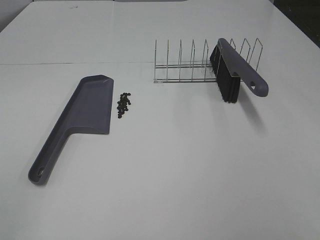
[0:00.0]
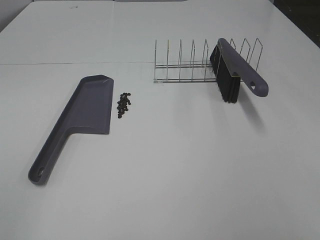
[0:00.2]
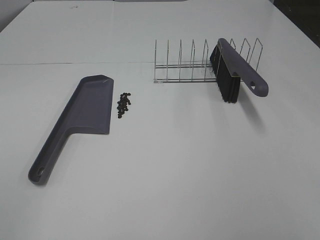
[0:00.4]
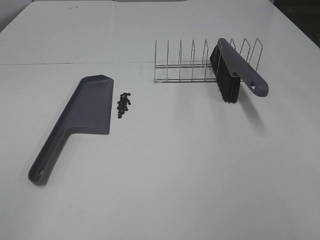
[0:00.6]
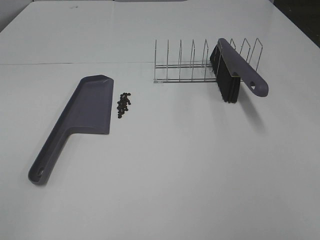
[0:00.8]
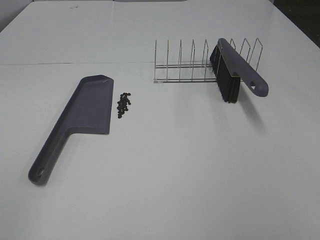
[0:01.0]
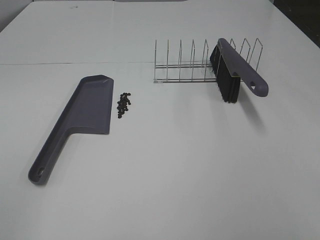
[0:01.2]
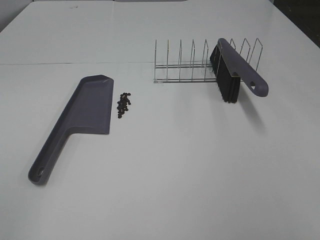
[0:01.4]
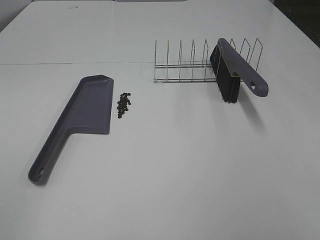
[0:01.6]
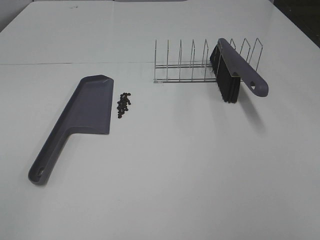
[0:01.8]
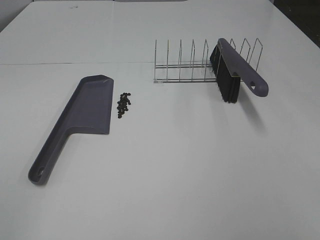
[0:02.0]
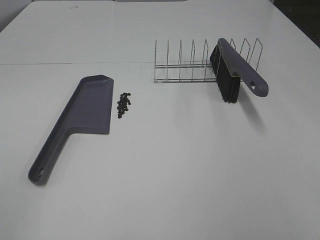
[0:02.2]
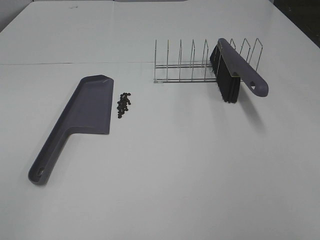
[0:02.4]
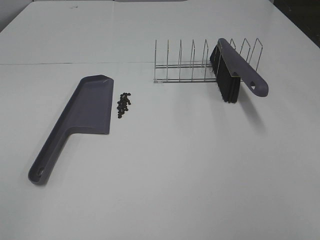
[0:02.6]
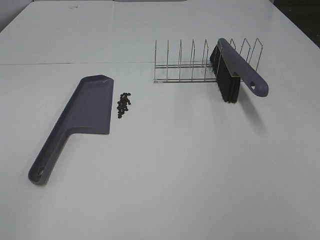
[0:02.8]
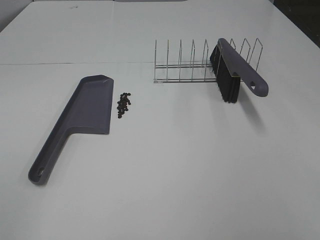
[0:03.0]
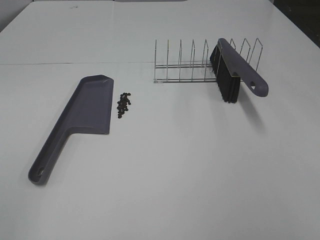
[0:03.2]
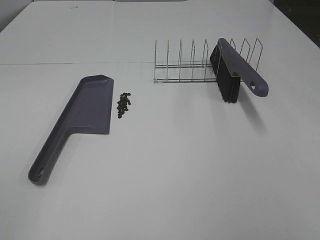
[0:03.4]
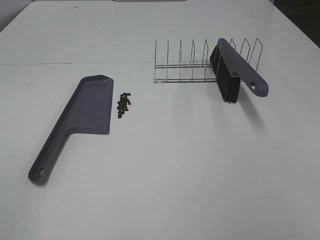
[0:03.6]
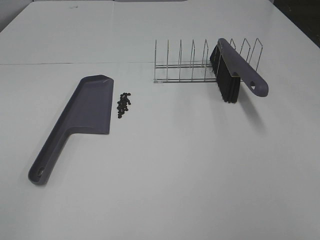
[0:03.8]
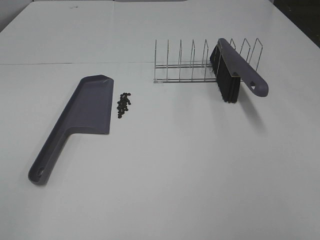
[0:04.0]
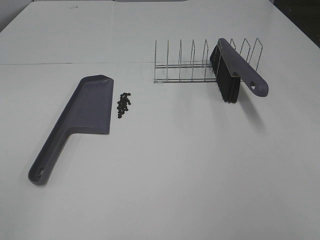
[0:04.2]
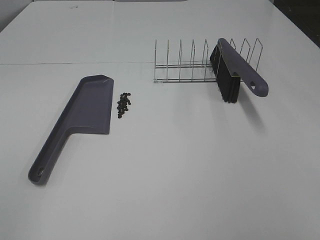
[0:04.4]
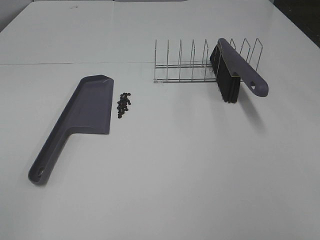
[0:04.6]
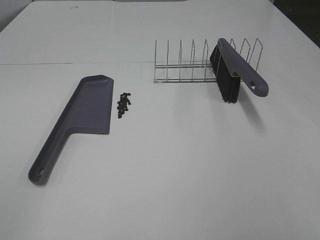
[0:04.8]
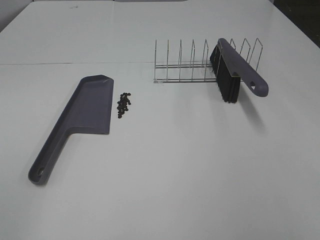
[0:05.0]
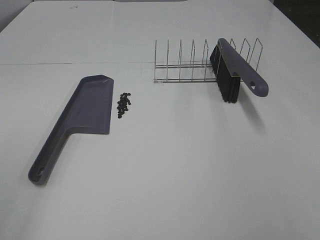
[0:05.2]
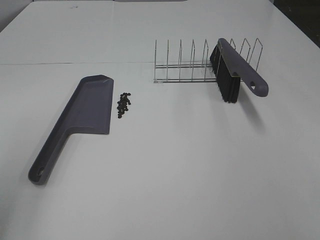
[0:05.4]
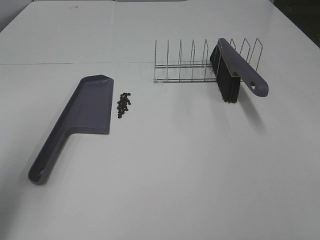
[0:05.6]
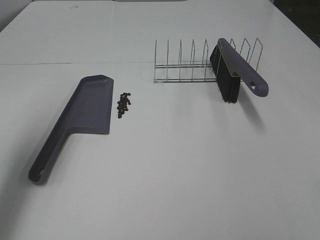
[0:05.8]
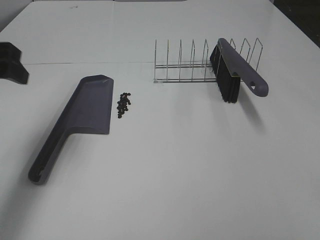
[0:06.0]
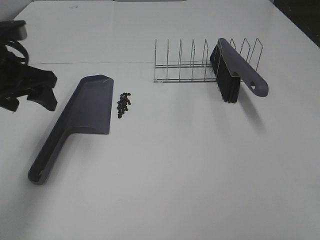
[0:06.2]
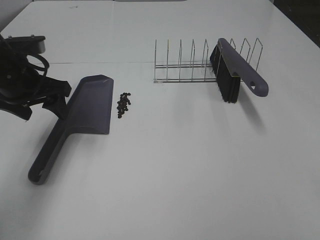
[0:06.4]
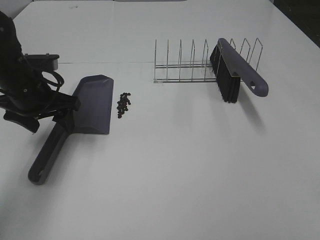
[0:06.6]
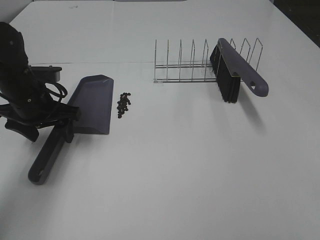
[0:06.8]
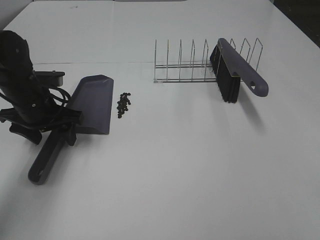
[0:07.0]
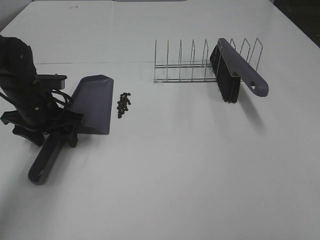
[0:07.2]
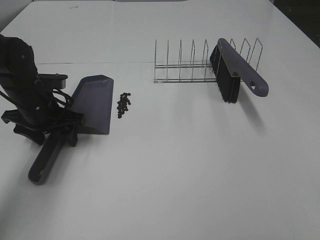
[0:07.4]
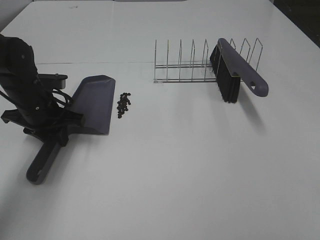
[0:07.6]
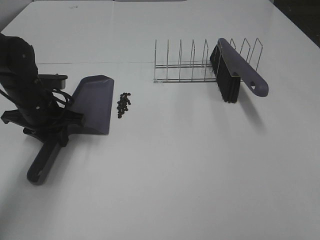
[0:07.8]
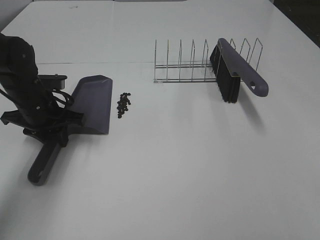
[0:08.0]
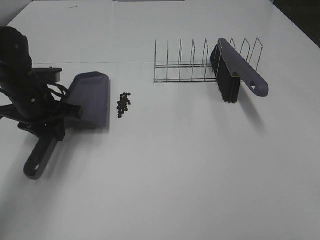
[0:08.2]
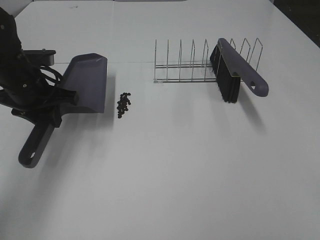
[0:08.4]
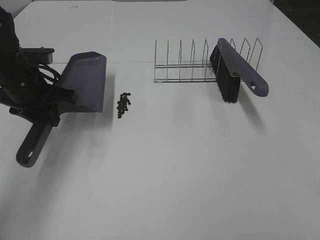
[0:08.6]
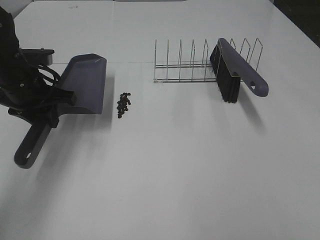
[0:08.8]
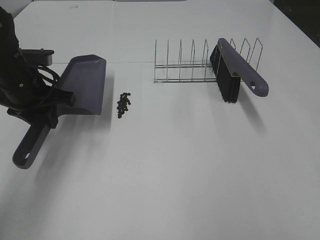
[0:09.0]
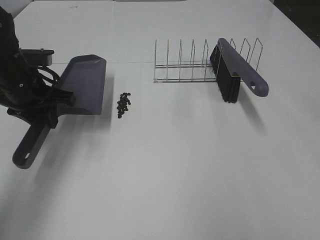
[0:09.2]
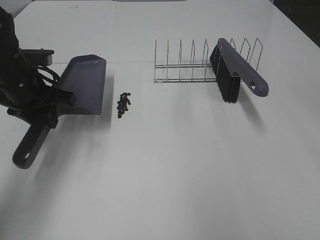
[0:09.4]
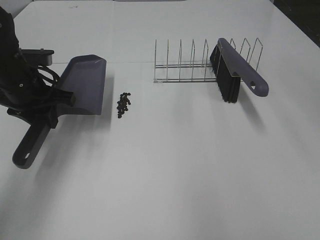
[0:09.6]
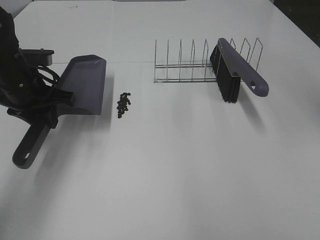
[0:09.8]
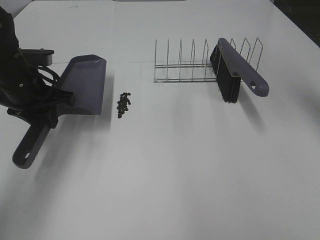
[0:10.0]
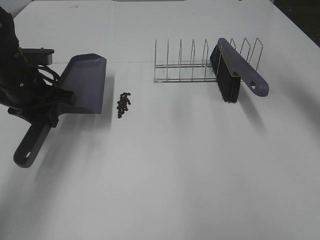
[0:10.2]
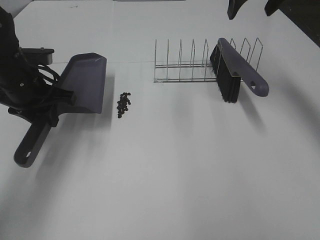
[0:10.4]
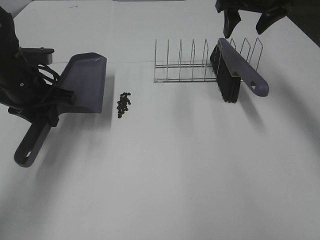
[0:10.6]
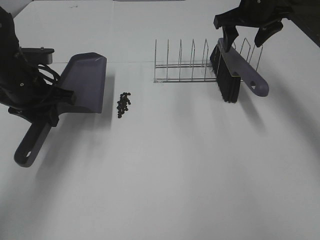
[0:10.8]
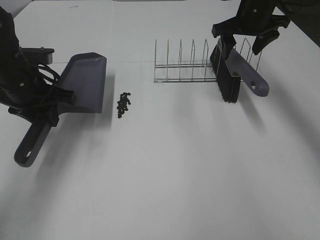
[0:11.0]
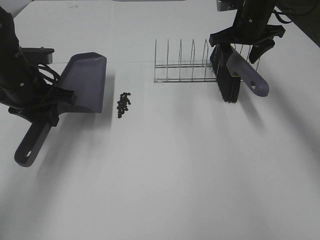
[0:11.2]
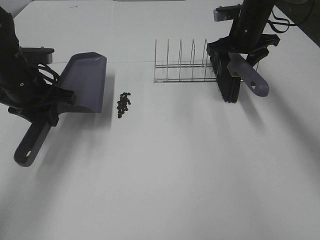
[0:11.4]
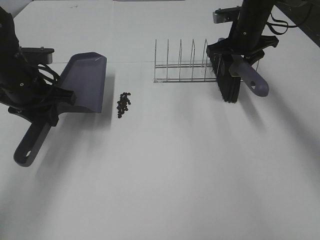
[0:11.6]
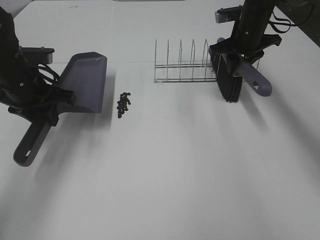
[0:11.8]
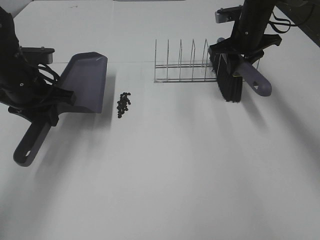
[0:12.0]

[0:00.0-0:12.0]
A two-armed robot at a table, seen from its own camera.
Task of the whole recording: Sweep Coffee Bean.
Step, 0:00.0 to 0:07.8: Left hand: grab the dustpan.
Step, 0:08.6 to 0:11.8: Right hand:grab the broom.
0:00.0 to 0:04.4: Both grippers stay put.
0:04.4 to 0:06.0: The left gripper is displaced forward by about 30 cm.
0:06.0 to 0:07.6: The left gripper is displaced downward and forward by some 20 cm, and closes.
0:07.6 to 0:09.0: The left gripper moves upward, approximately 5 cm.
0:09.0 to 0:10.4: The right gripper shifts about 40 cm forward.
0:10.4 to 0:12.0: The right gripper goes roughly 15 cm downward, and closes up.

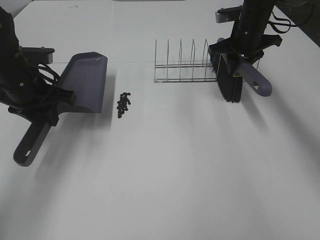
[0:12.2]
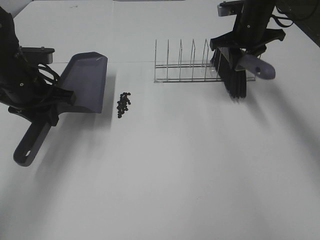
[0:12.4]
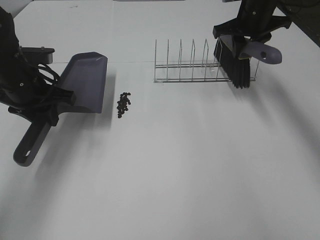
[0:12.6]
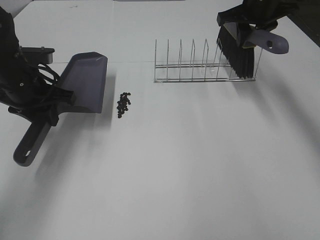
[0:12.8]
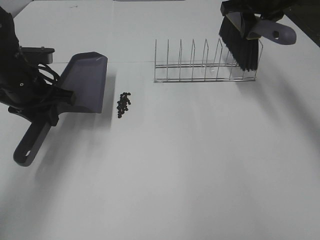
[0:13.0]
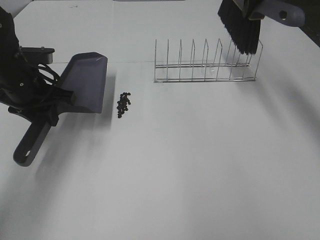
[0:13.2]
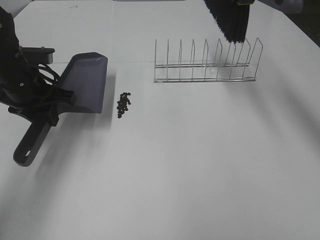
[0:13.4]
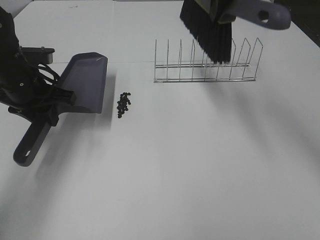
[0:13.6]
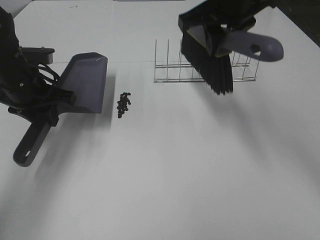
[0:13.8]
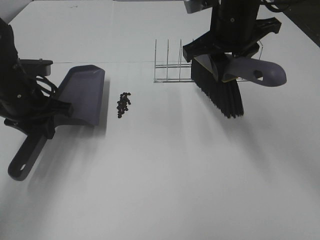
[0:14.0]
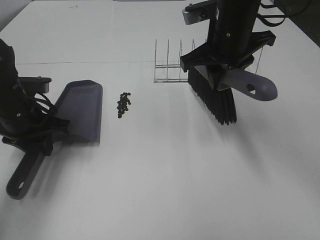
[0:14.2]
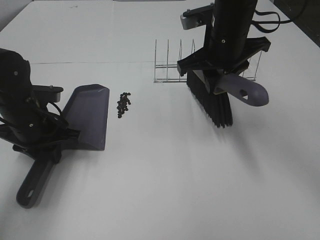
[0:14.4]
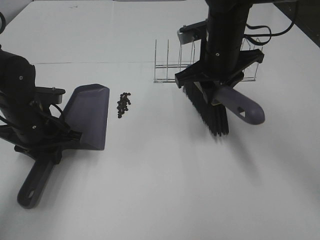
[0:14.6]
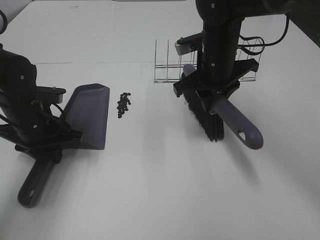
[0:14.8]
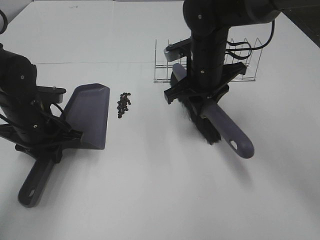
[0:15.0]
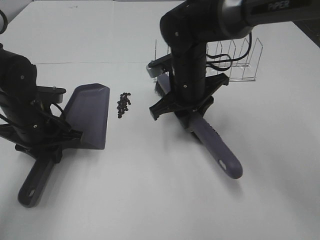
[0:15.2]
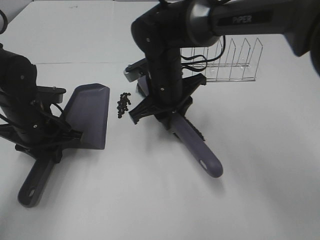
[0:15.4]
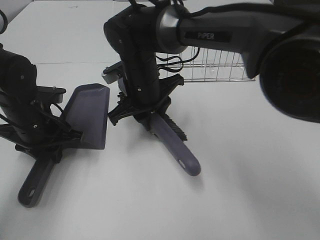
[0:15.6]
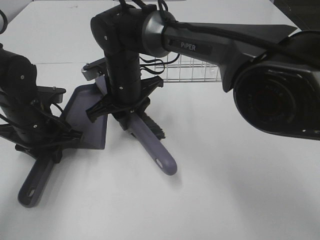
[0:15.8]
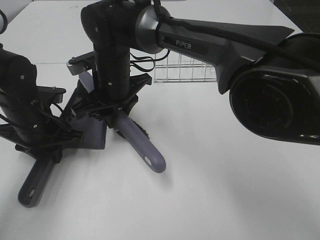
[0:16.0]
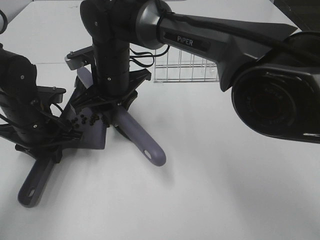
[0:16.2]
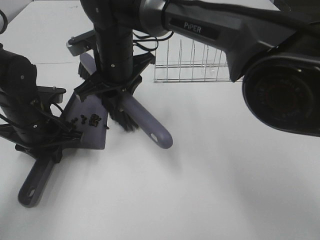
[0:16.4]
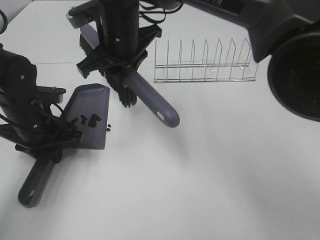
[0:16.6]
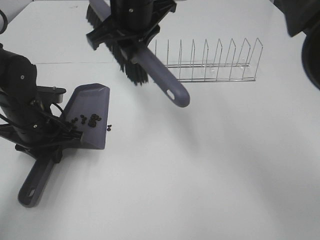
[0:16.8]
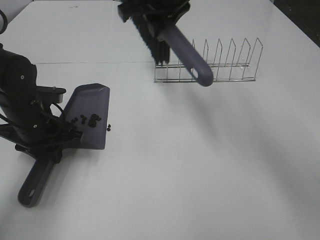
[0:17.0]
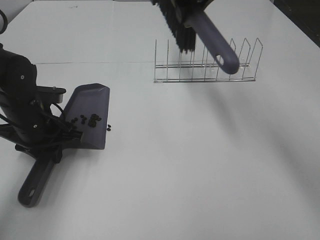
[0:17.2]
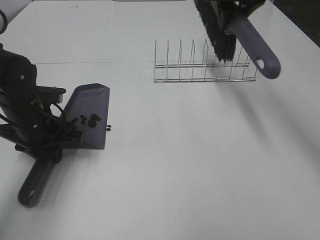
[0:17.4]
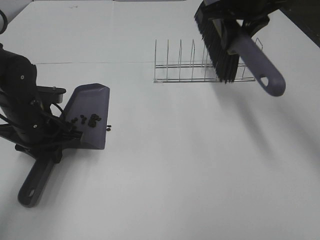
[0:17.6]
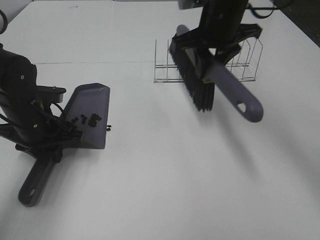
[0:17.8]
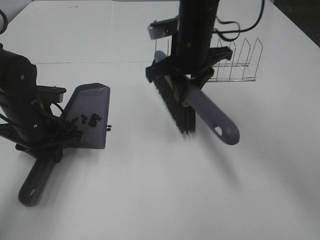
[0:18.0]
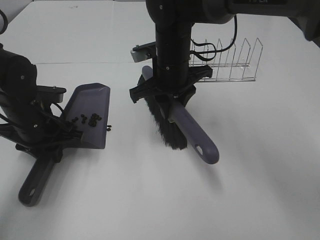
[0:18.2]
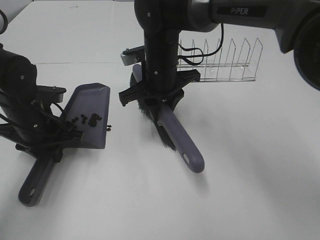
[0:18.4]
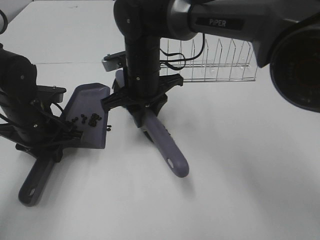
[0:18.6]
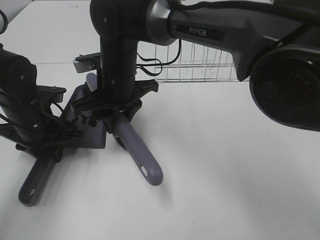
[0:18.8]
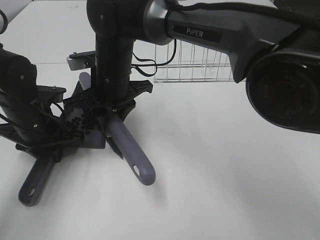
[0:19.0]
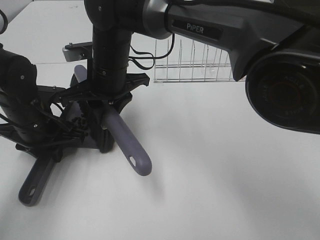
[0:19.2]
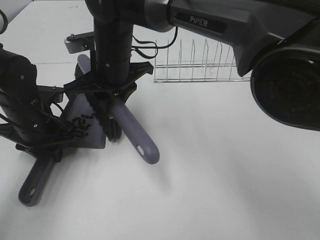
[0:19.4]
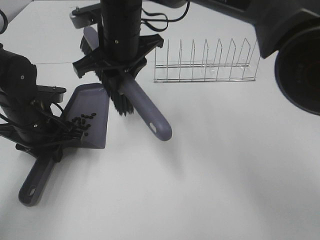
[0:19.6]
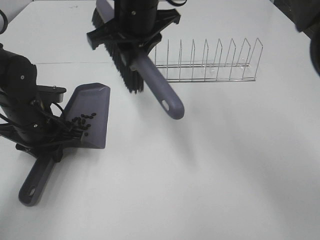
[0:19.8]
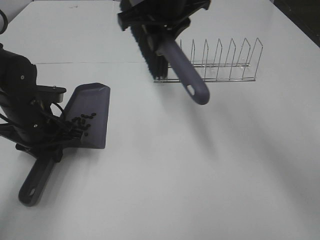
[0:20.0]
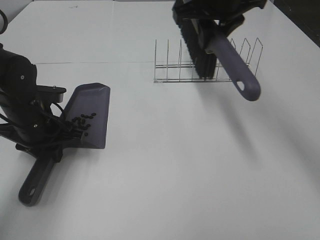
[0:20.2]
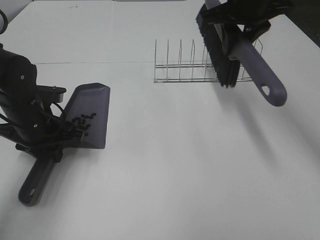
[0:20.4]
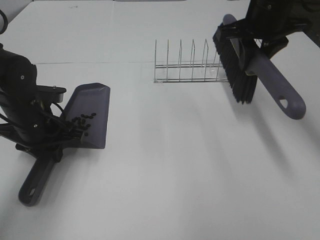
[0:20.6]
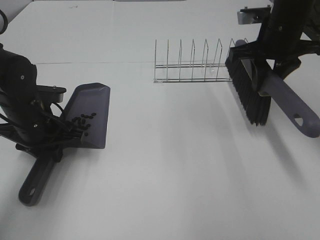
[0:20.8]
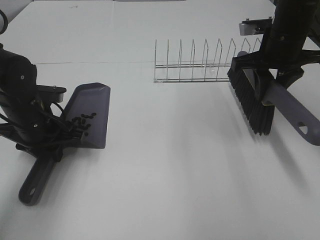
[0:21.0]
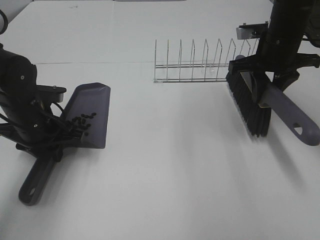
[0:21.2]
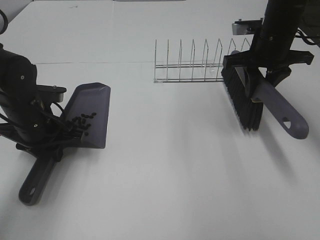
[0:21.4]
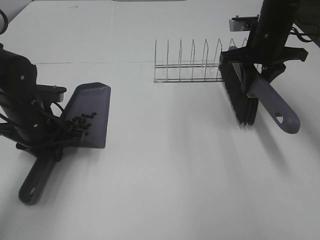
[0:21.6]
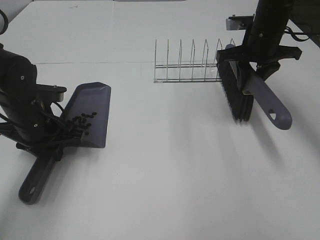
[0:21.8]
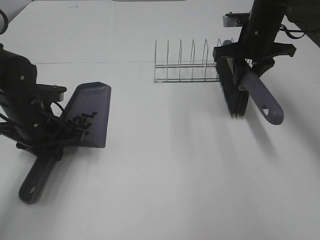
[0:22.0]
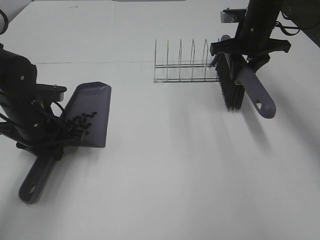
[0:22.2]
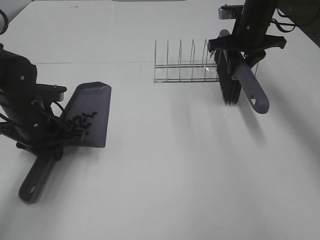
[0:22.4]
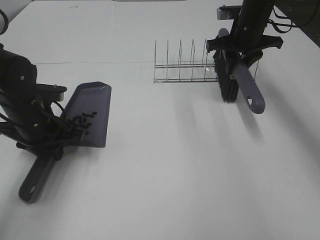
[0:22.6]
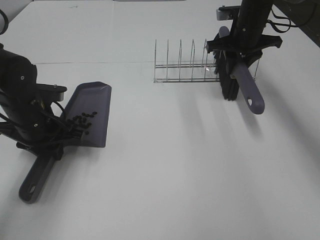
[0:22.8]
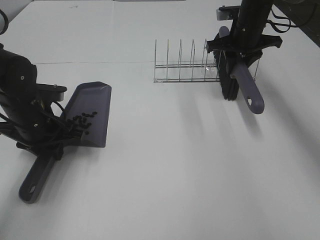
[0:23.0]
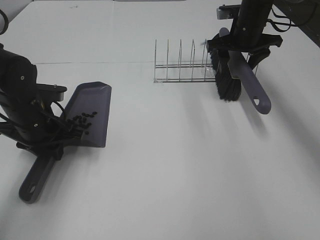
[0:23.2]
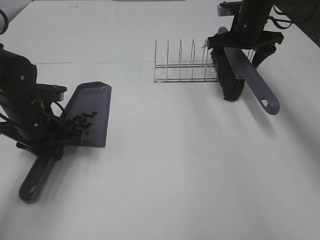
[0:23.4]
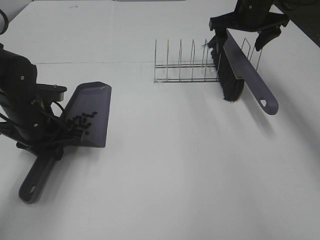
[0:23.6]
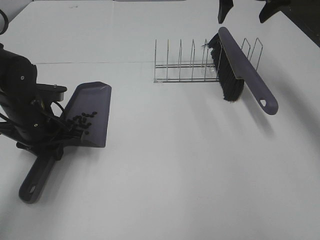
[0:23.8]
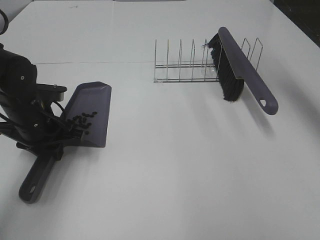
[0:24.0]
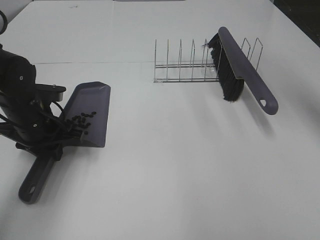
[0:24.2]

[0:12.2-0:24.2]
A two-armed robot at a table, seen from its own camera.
Task of the whole recording: Sweep Coffee Bean.
Step, 0:12.2 to 0:14.6: Left hand: move the dustpan to the left side of the coffee beans.
Step, 0:12.2 to 0:19.4: Right hand:sweep the coffee beans into the dustpan.
Step, 0:19.6 to 0:23.4: Right hand:place the broom on the rack.
0:12.2 to 0:13.8: The right gripper heads backward, upward and to the left, covering roughly 20 cm.
0:13.8 to 0:15.2: The left gripper travels downward by roughly 5 cm; the right gripper goes roughly 15 cm downward.
0:15.2 to 0:16.6: The right gripper moves to the left and upward, about 15 cm.
0:16.6 to 0:18.2: The right gripper moves to the right and downward, approximately 10 cm.
0:18.2 to 0:19.8: The right gripper moves upward, approximately 10 cm.
0:19.8 to 0:21.2: The right gripper heads to the right, covering roughly 25 cm.
0:21.2 to 0:22.6: The right gripper shifts about 10 cm forward.
0:22.6 to 0:24.2: The right gripper travels upward and backward by roughly 20 cm, and opens up.
